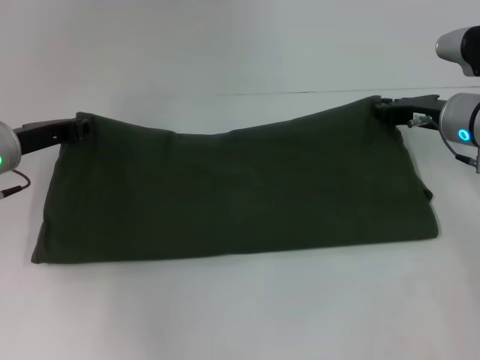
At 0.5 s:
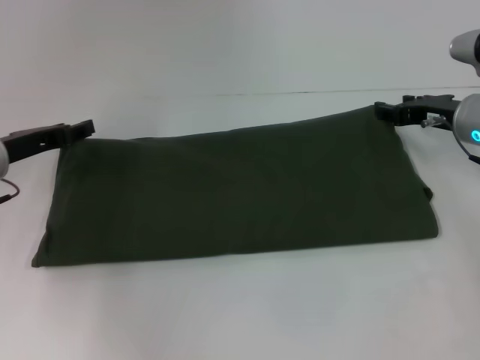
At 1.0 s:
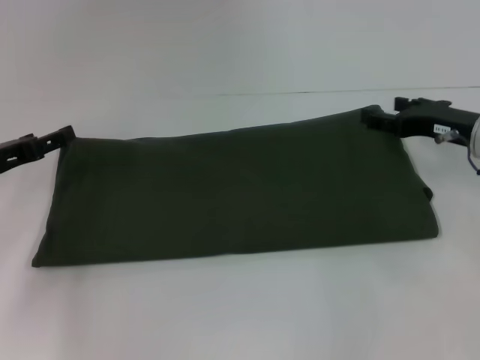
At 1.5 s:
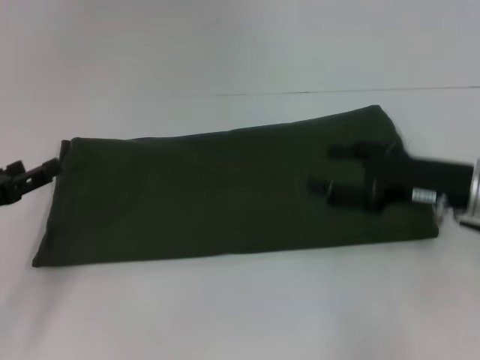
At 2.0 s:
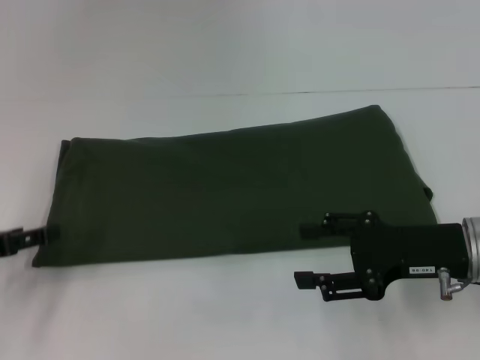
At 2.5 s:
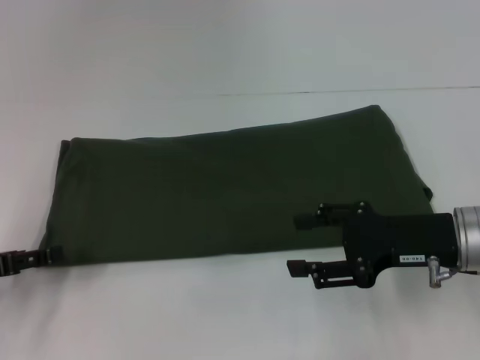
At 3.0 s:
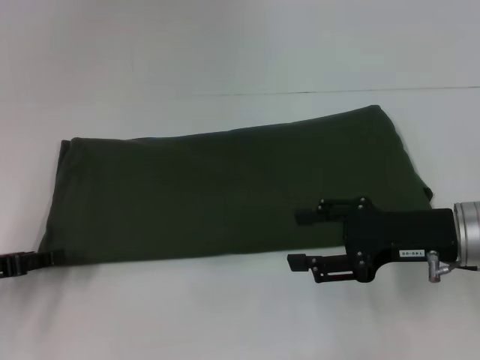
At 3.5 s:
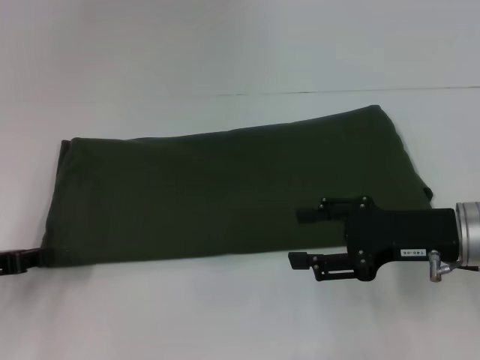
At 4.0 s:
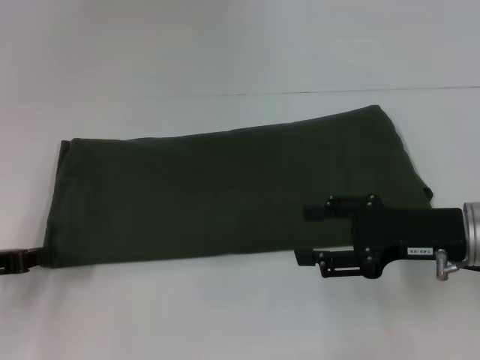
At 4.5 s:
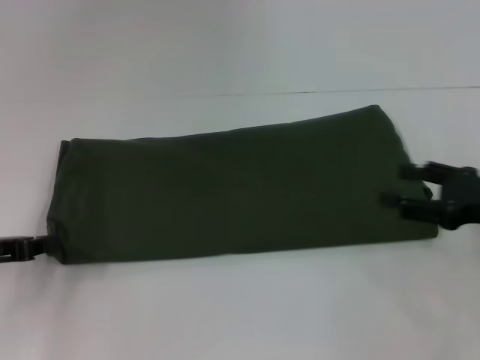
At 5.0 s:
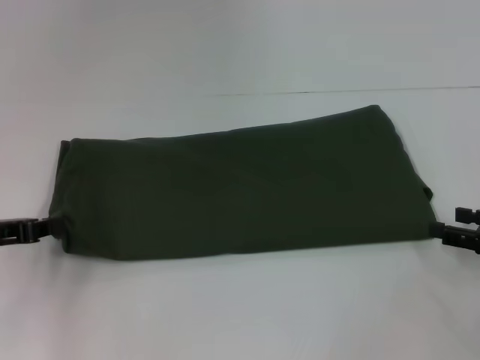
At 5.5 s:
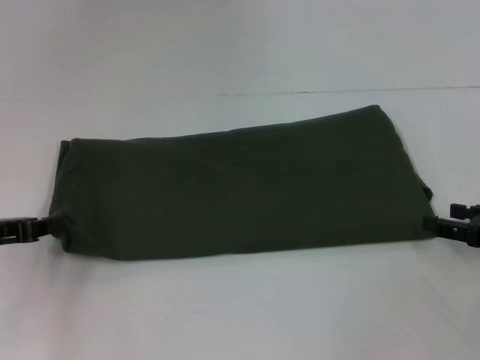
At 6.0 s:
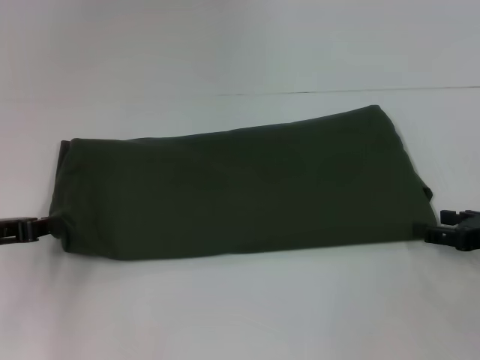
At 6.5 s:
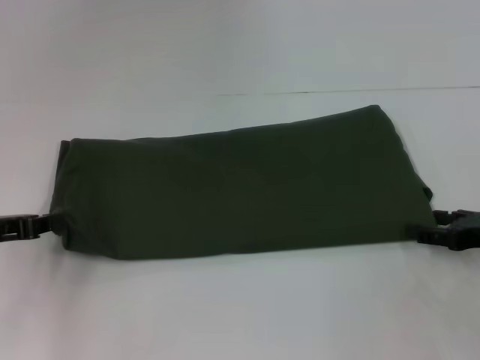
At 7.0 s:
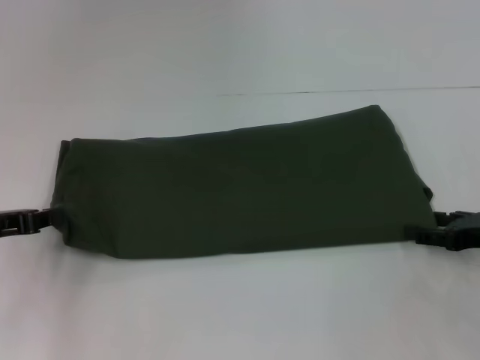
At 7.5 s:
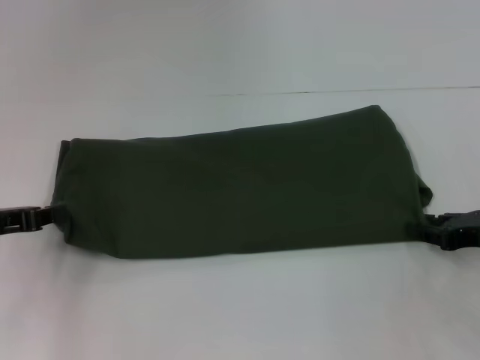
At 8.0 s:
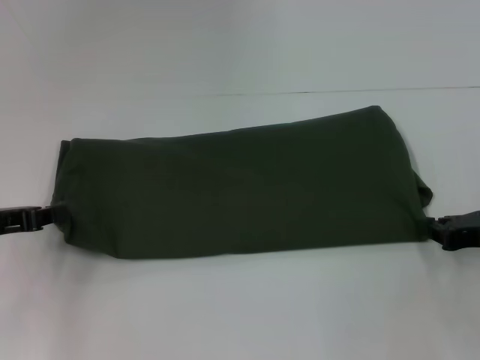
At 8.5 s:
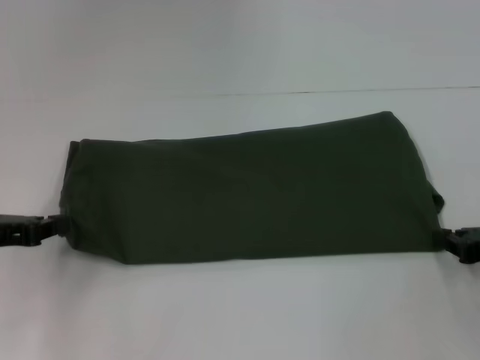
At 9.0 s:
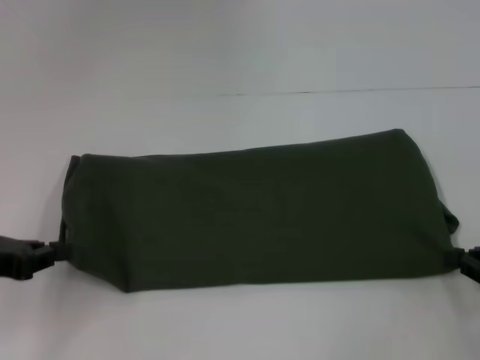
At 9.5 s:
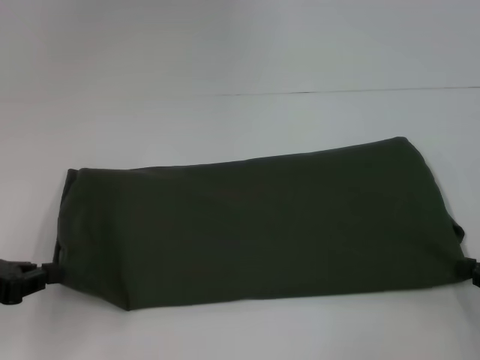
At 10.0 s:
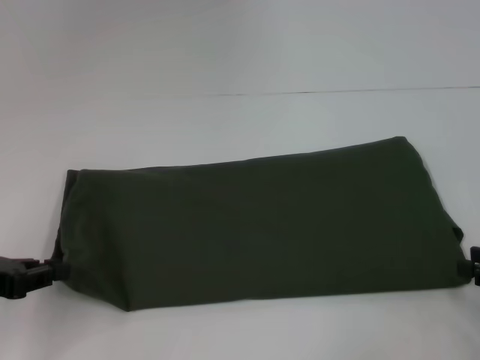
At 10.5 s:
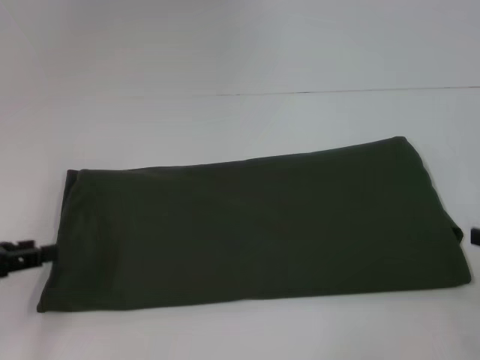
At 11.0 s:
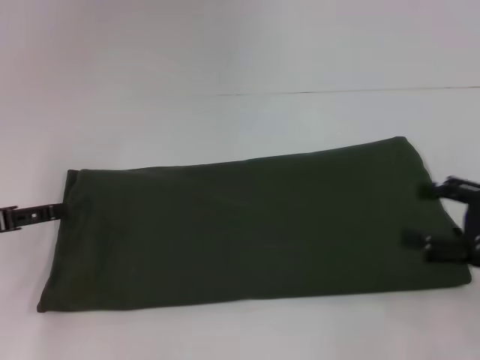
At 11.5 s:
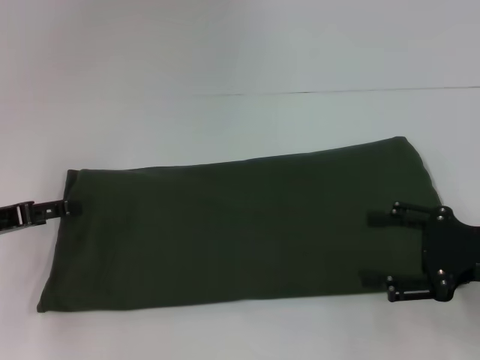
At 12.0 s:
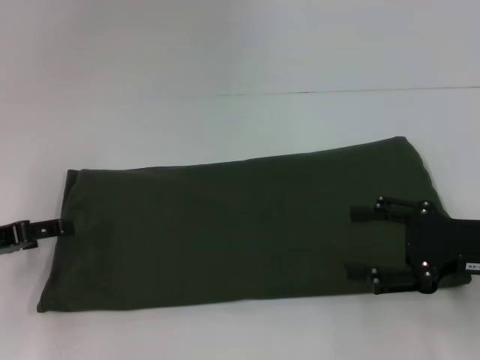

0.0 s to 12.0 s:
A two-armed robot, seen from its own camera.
Step, 1.0 to 10.5 s: Pull the clothes with your left hand.
Step, 1.0 to 10.5 s: Pull the clothes with your right hand.
0.0 to 2.0 s: The right gripper shifts approximately 15 cm backward, and opens up. Meanwhile the left gripper goes roughly 15 cm backward and to the left, and opens its fingers.
2.0 to 4.0 s: The left gripper closes.
4.0 to 6.0 s: The right gripper moves to the right, some 10 cm.
6.0 to 8.0 s: The right gripper closes up.
8.0 to 10.0 s: The left gripper moves about 5 cm, while the right gripper heads backward, covering roughly 5 cm.
10.0 to 12.0 s: The right gripper shifts about 10 cm to the left, and opens up. Meanwhile the left gripper opens up.

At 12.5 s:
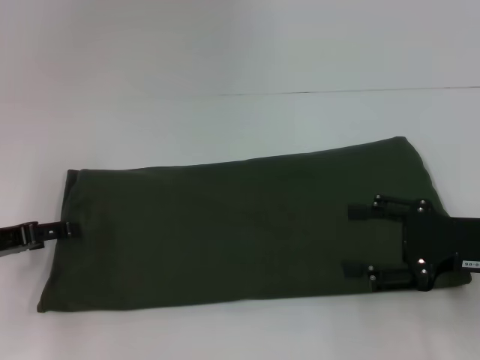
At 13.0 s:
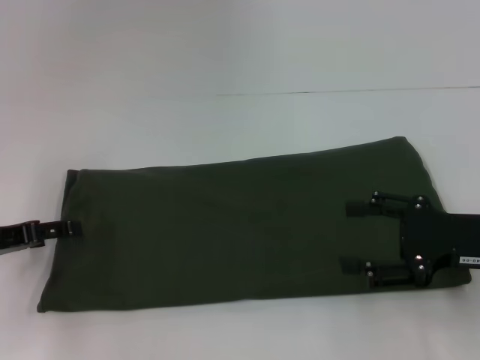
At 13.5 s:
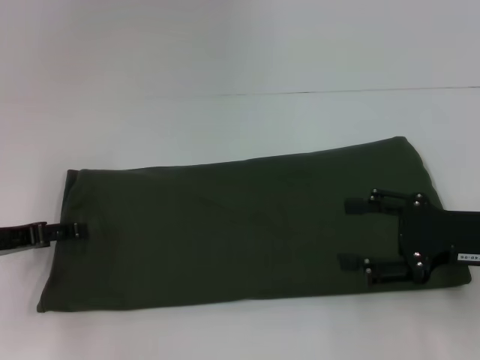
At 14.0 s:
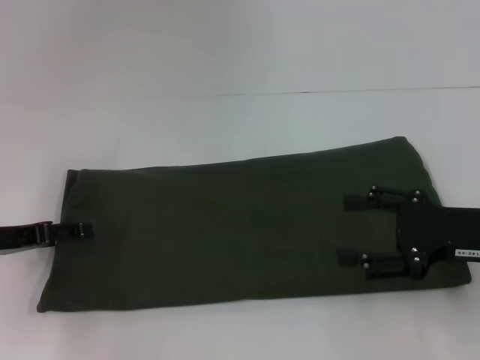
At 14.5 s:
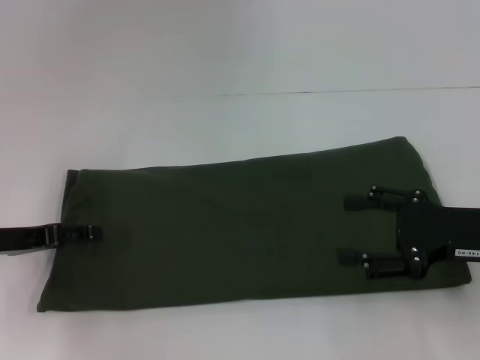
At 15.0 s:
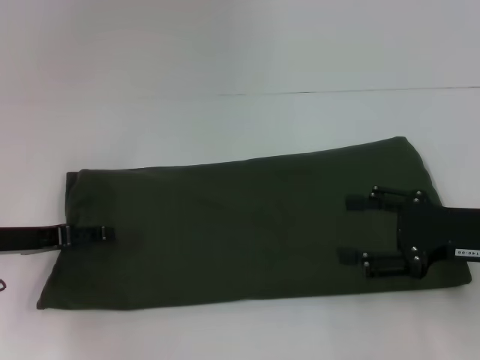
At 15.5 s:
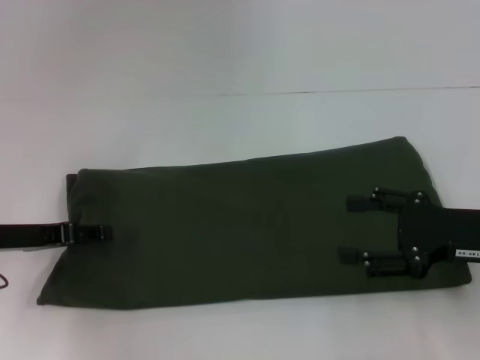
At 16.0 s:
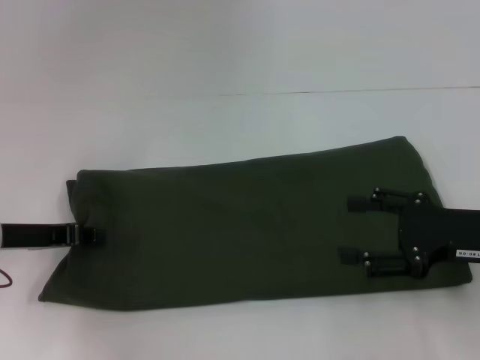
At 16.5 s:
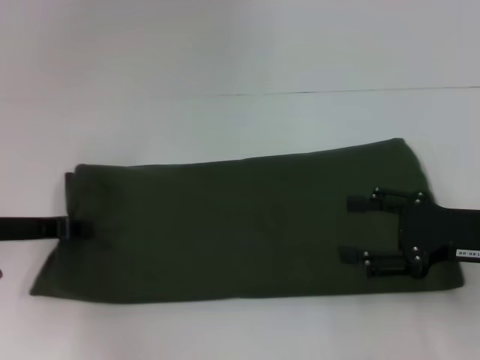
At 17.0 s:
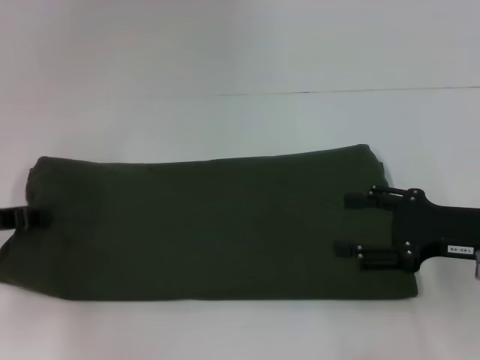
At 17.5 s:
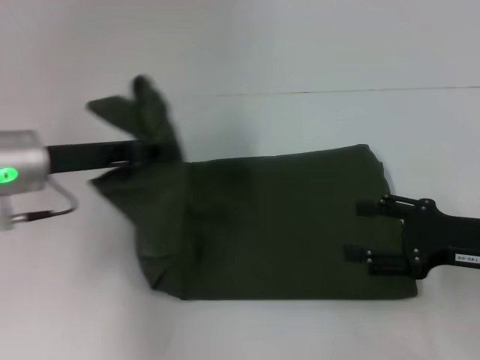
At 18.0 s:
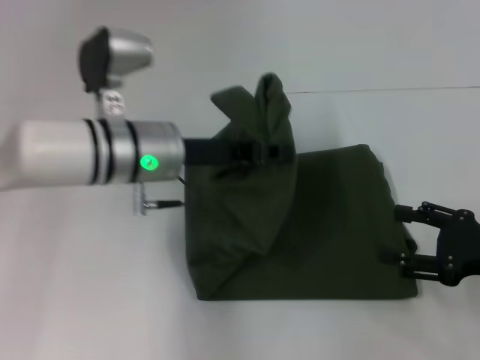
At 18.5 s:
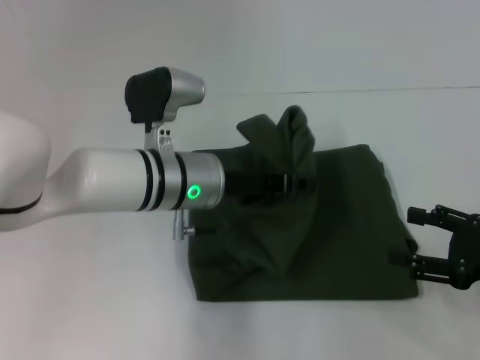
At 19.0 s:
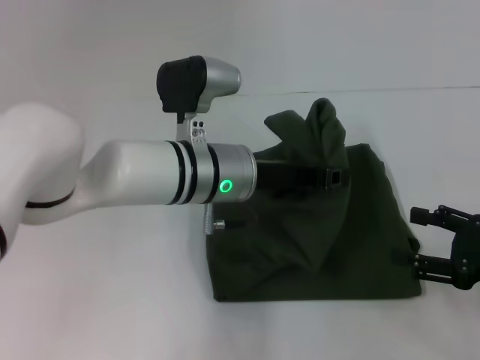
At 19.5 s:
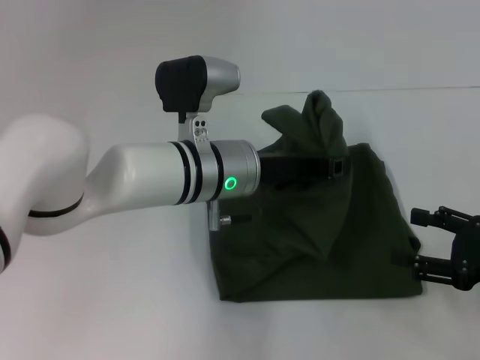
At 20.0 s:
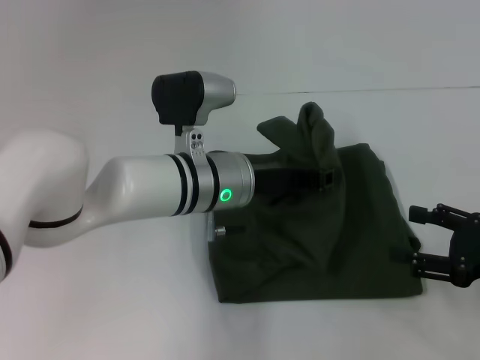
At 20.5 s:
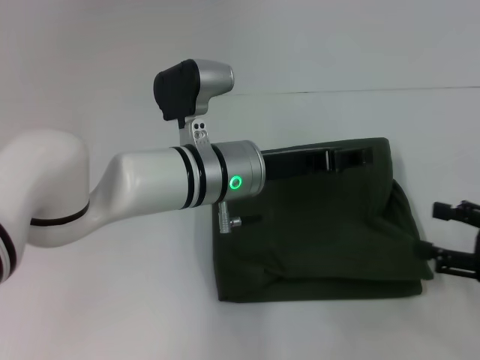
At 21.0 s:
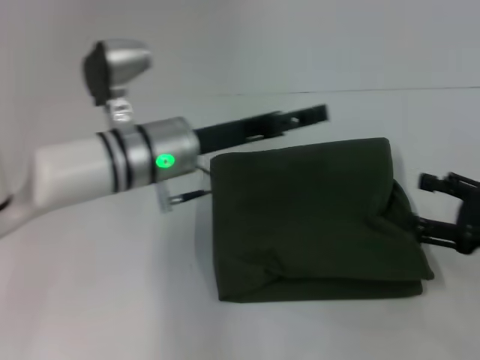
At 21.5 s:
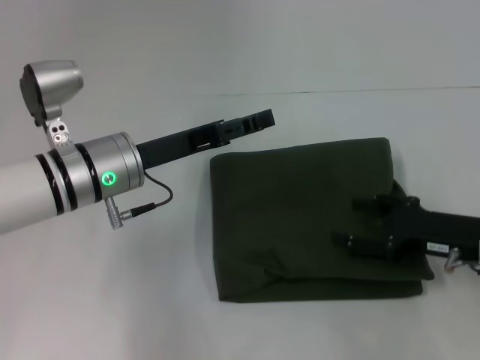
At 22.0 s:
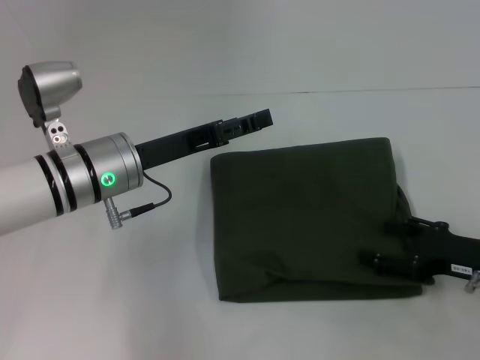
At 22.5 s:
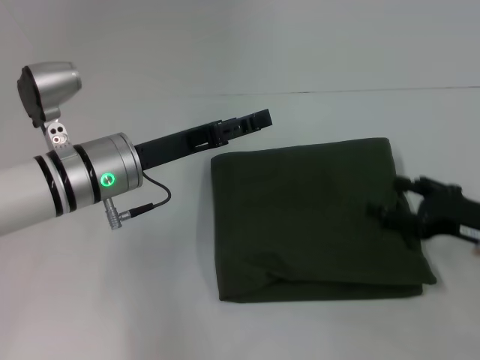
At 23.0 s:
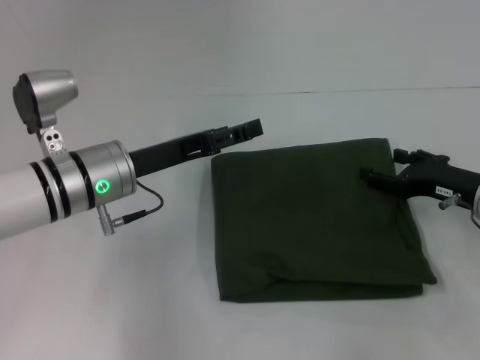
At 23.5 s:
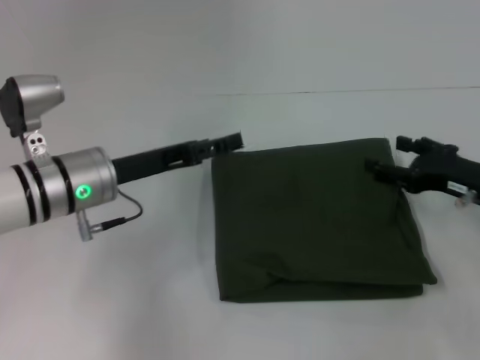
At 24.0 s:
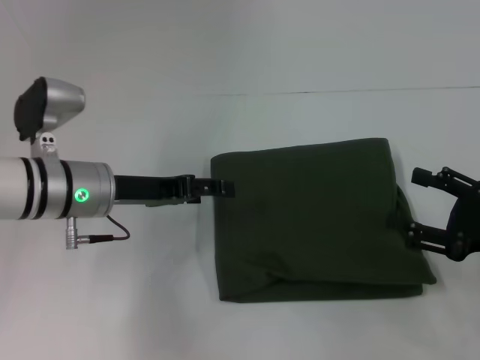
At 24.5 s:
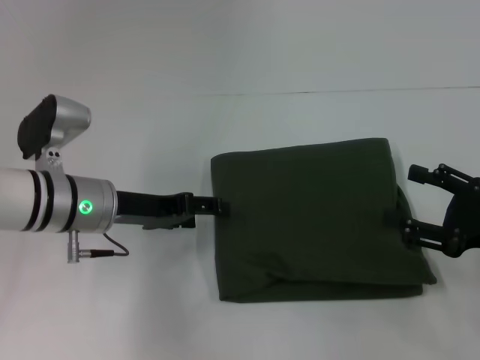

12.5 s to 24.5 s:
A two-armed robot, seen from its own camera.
Step, 12.5 to 20.5 s: Fold the clothes with your left hand.
12.5 to 14.5 s: The grippers make only small movements.
14.5 to 16.5 s: The left gripper closes.
16.5 to 18.5 s: The left gripper is displaced to the right by approximately 20 cm; the right gripper moves approximately 5 cm.
18.5 to 20.5 s: There are only small adjustments of the grippers.
20.5 to 22.5 s: The right gripper shifts by about 5 cm, while the left gripper heads to the left, covering about 10 cm, and opens its fingers.

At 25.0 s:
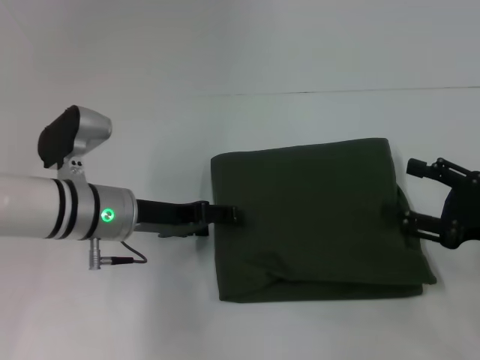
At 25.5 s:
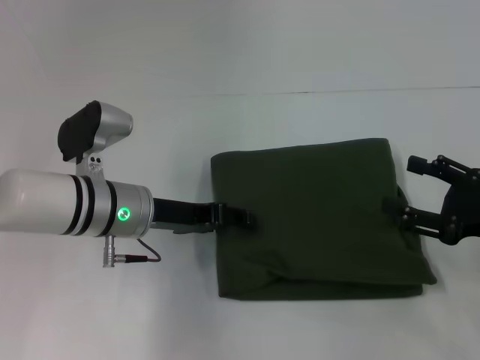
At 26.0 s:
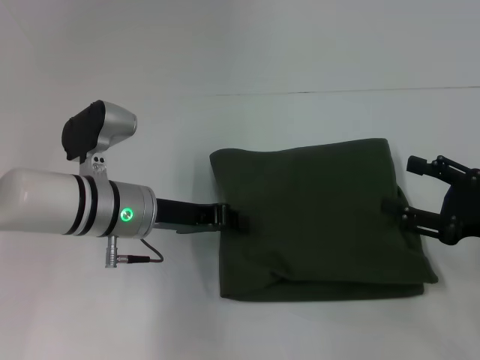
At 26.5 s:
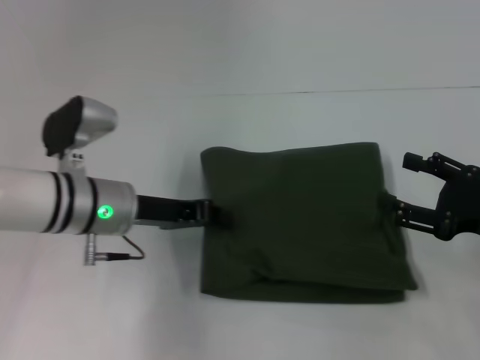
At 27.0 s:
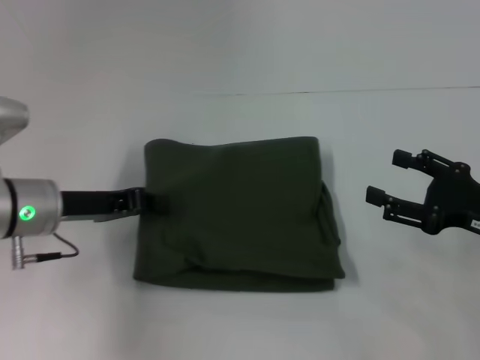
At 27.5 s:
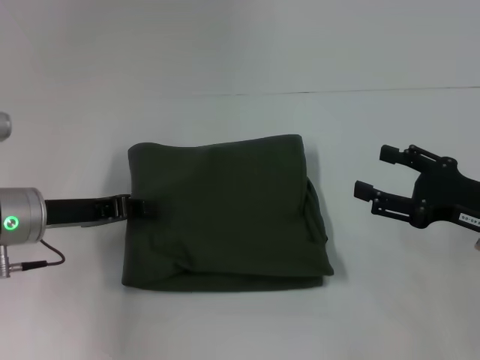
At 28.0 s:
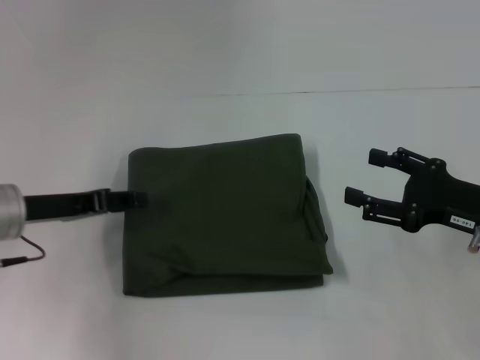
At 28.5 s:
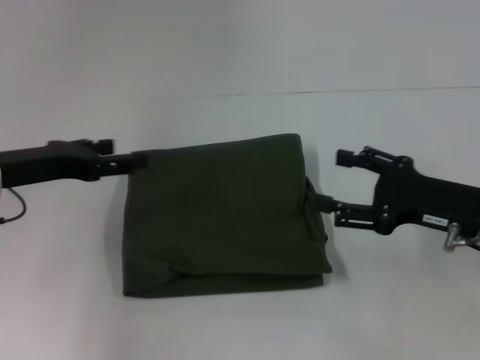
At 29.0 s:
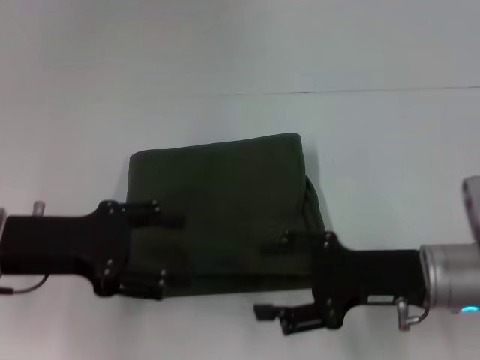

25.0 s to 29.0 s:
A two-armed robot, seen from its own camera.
25.0 to 27.0 s: The left gripper is displaced to the left by approximately 5 cm, and closes up.
27.0 to 29.0 s: The left gripper heads backward, covering roughly 5 cm, and opens up; the right gripper shifts some 10 cm to the left.
